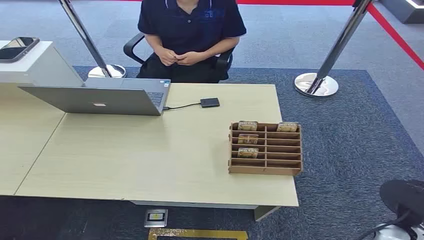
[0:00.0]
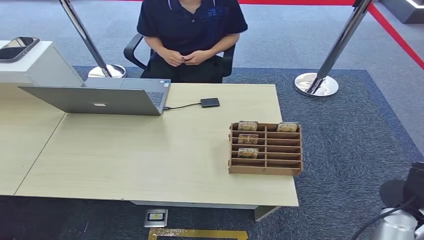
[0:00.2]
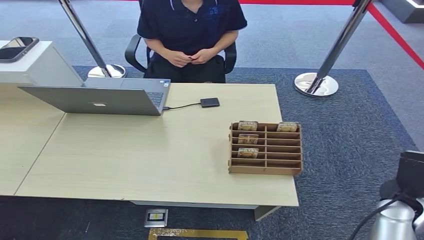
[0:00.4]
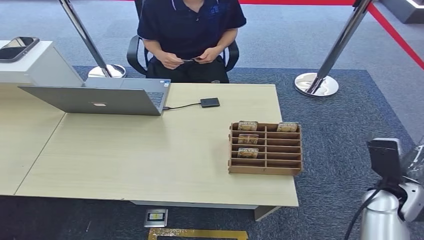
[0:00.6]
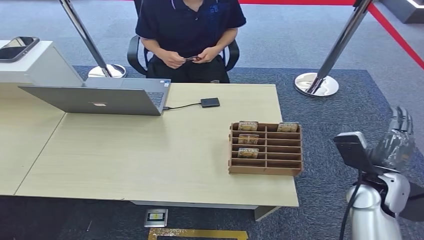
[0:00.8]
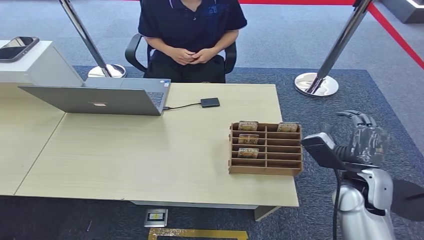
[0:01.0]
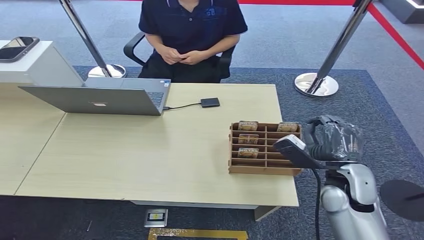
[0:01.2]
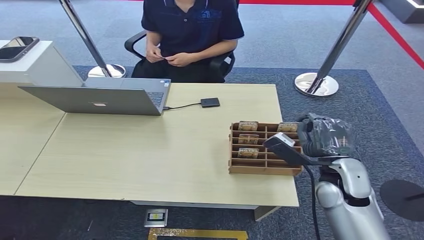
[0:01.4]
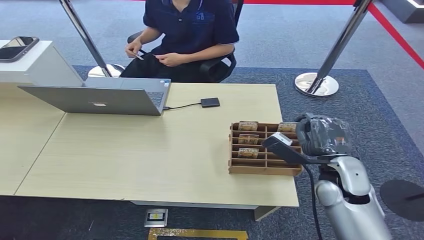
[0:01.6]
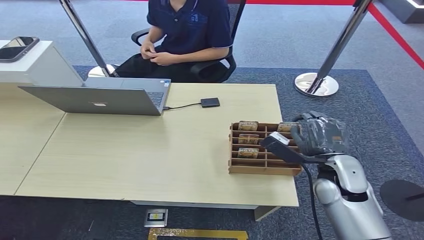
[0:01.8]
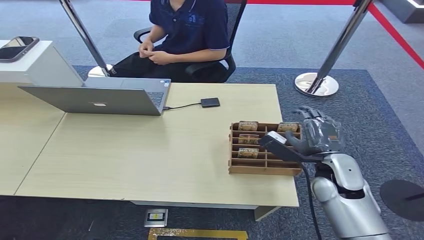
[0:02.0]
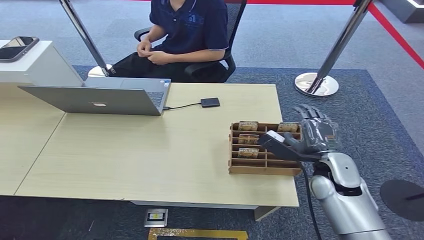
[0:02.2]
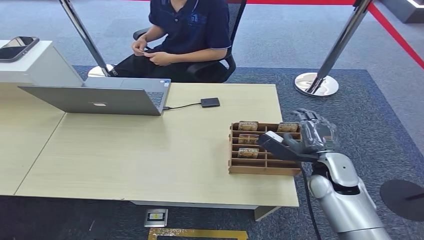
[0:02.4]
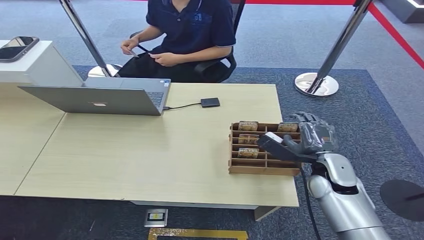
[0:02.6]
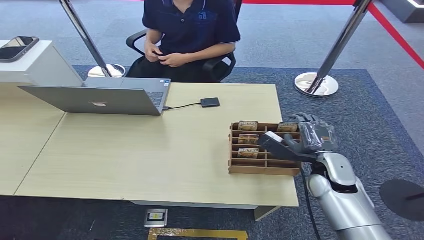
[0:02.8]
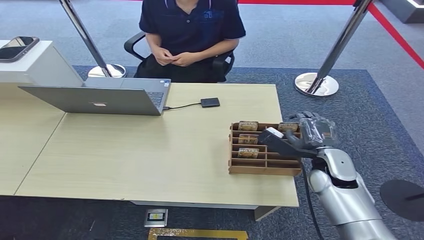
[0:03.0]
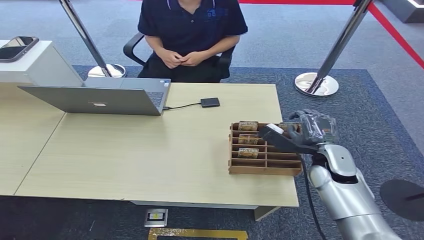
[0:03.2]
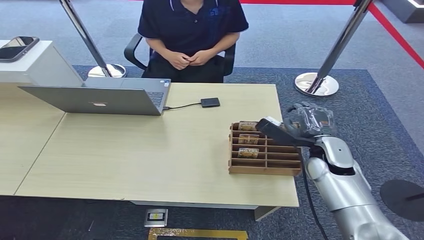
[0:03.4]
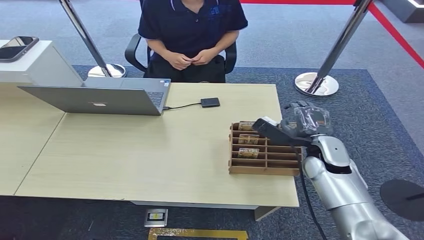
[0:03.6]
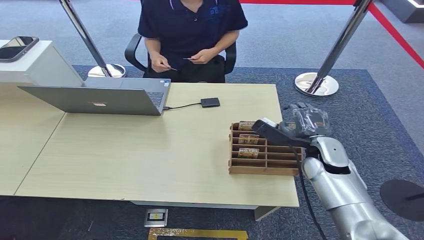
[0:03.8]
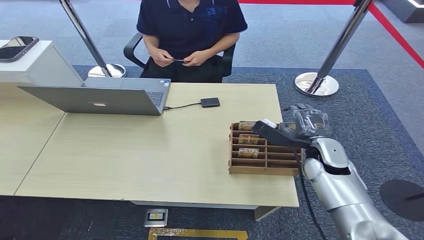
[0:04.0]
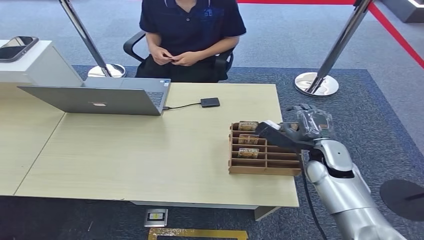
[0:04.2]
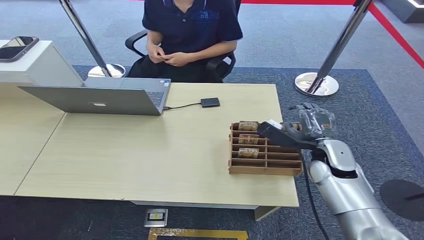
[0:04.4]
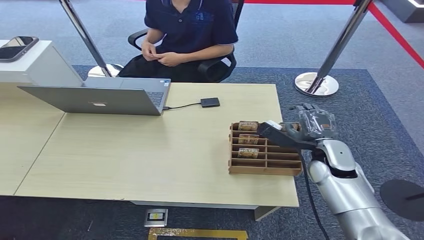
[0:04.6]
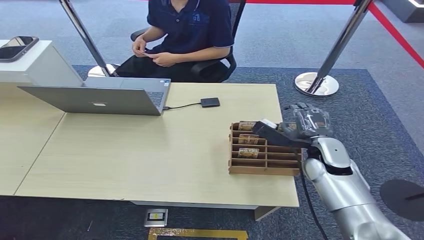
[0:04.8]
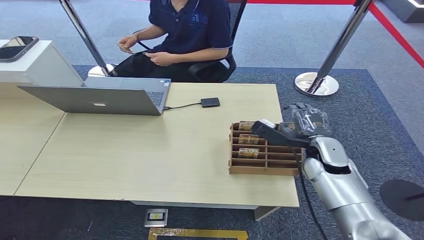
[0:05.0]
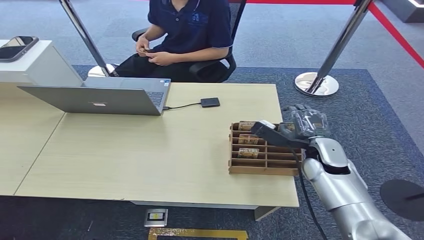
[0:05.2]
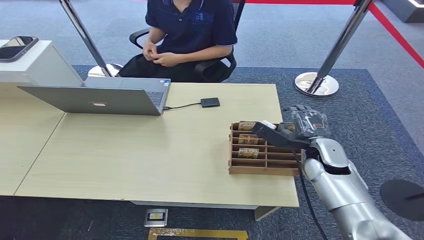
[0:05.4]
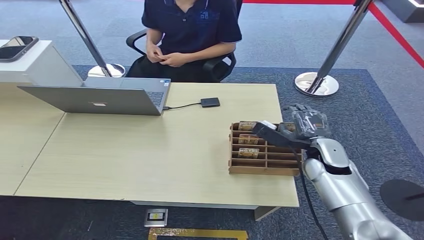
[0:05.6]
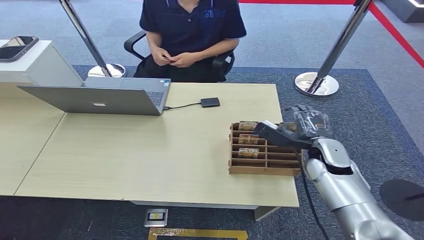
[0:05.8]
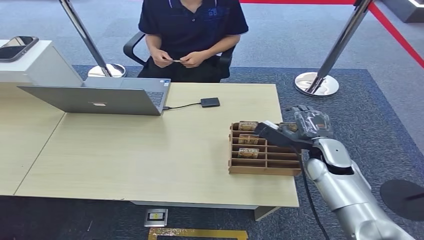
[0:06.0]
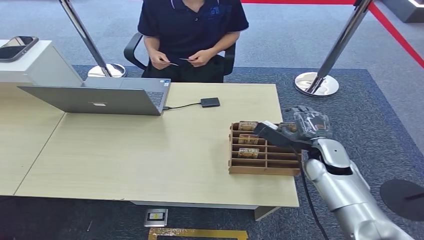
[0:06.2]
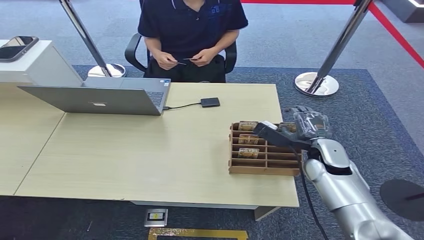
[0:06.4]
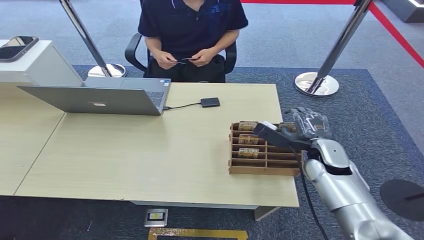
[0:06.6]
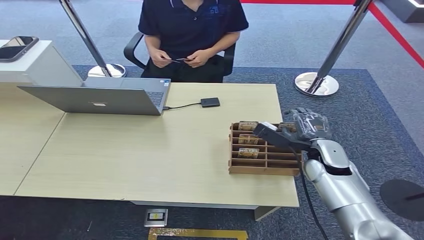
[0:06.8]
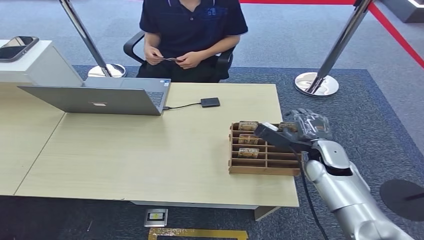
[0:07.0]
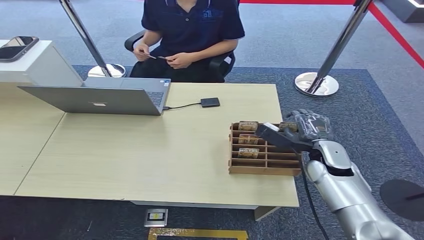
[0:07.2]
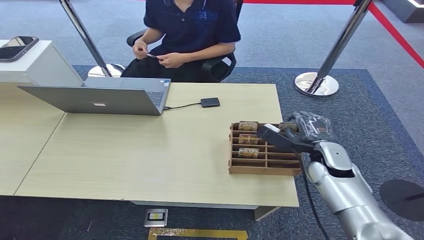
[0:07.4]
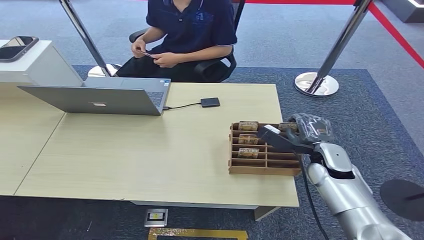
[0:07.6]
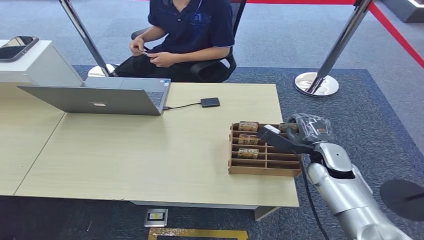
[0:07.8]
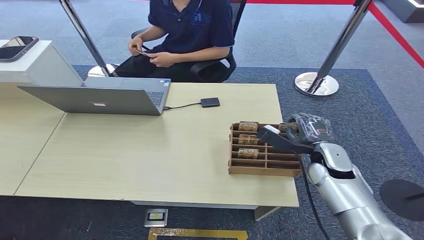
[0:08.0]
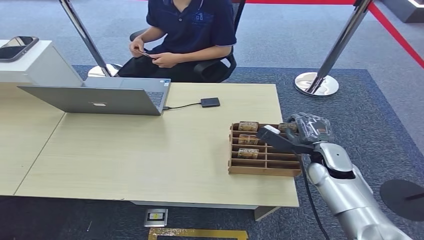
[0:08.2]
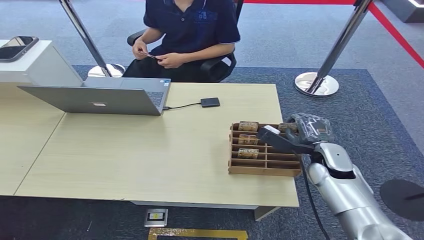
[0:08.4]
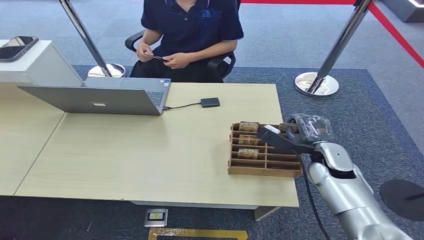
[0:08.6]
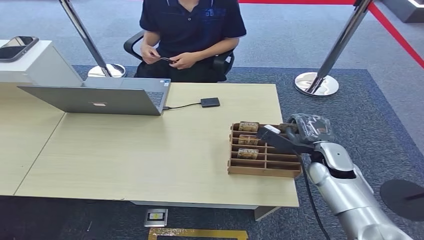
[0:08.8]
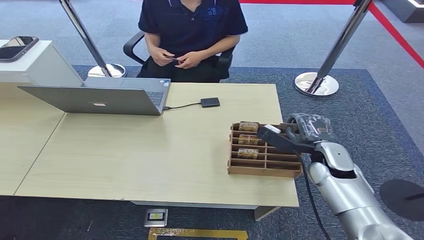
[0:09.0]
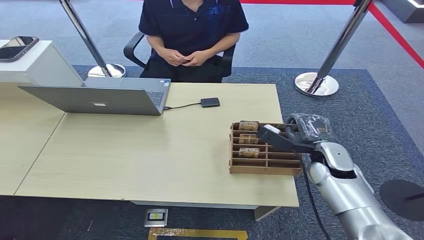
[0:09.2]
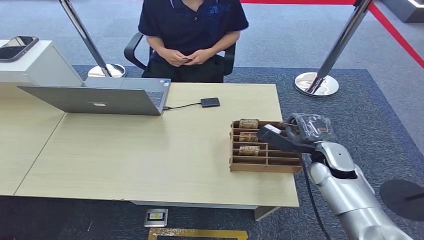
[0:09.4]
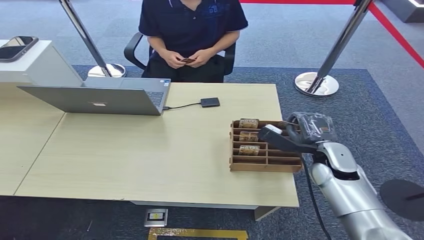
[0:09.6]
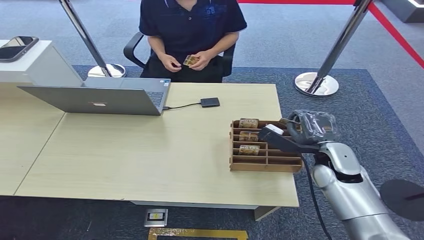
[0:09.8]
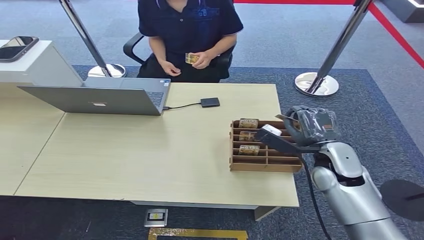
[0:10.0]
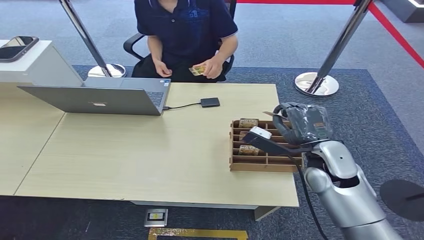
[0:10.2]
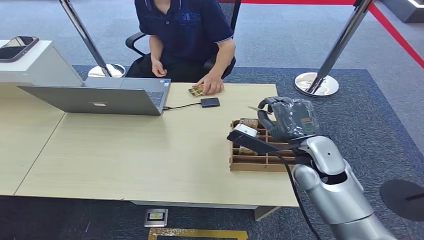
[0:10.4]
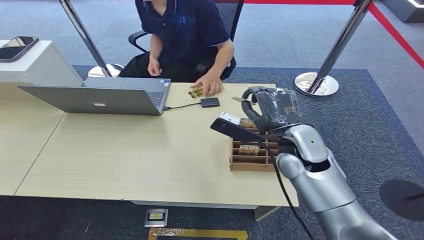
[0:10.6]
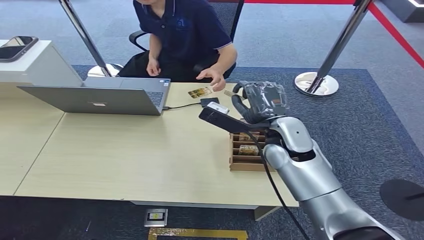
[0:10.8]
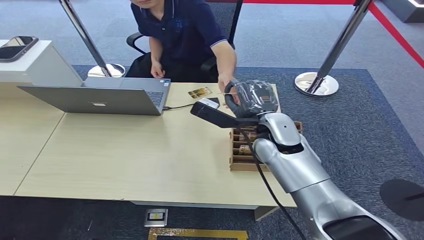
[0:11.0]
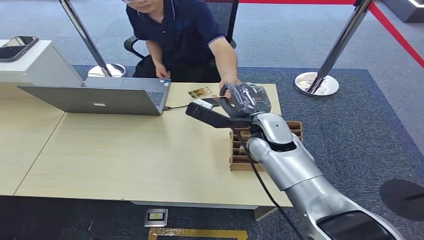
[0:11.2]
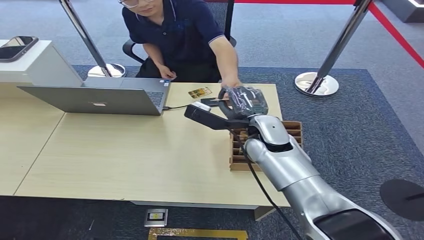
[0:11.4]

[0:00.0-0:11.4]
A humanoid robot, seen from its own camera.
Step, 0:00.0 to 0:10.6: Pick up the key card from the card box.
Step, 0:10.8 to 0:11.4: Hand the key card to the target.
0:01.4 to 0:02.8: The hands move only a little.
0:02.8 to 0:04.2: The hands stay close to where they were, moving slightly.
0:04.2 to 0:05.6: The two hands keep their place.
0:05.6 to 0:07.2: The hands move only a little.
0:07.2 to 0:08.6: The two hands keep their place.
0:08.6 to 0:10.0: The hands move only a little.
0:10.0 to 0:11.4: The right hand moves to the left, about 15 cm.
